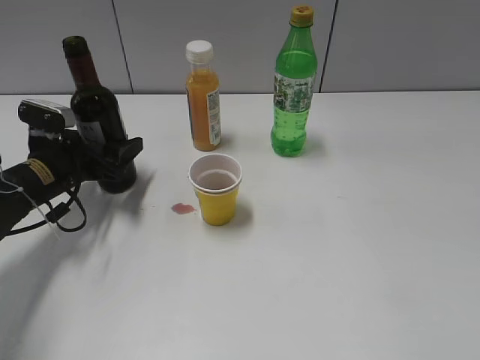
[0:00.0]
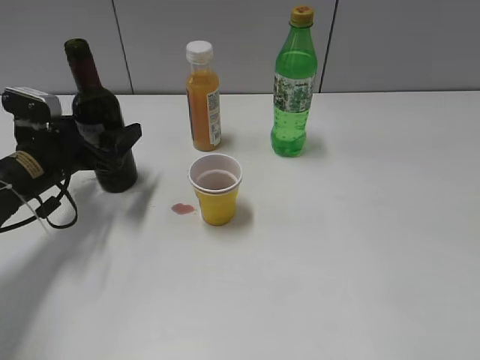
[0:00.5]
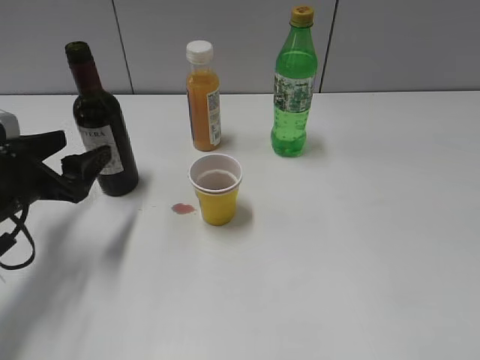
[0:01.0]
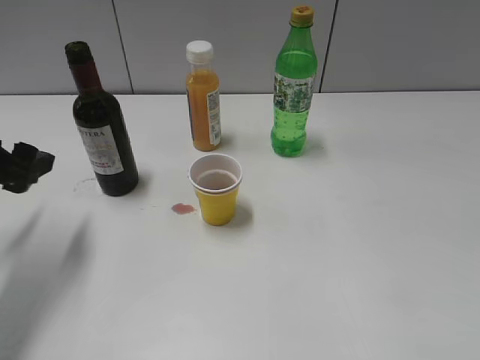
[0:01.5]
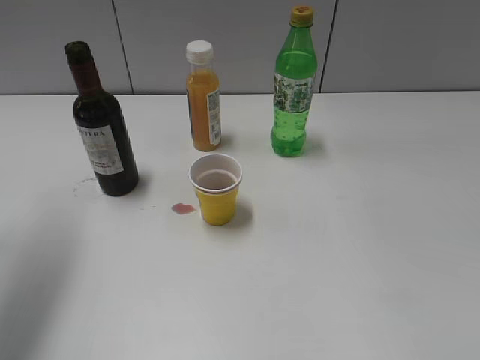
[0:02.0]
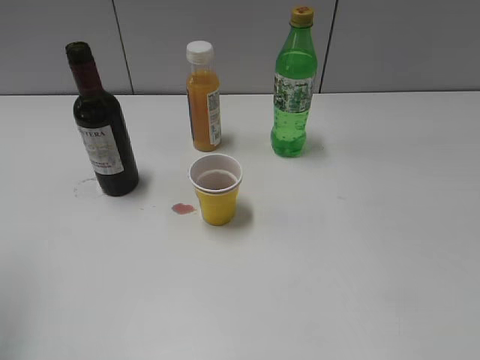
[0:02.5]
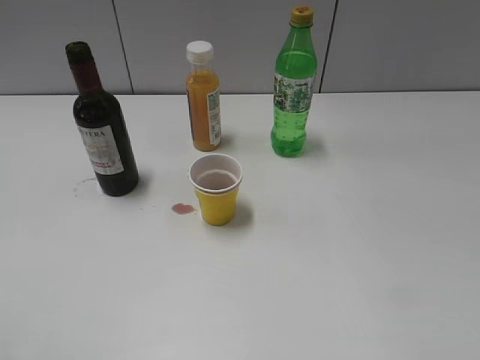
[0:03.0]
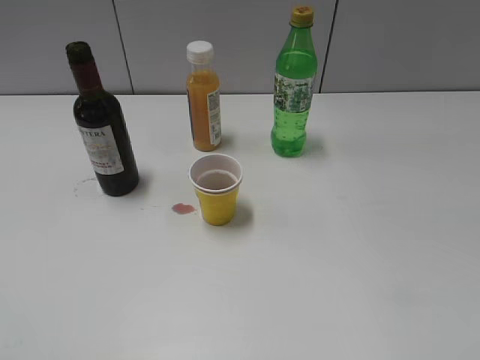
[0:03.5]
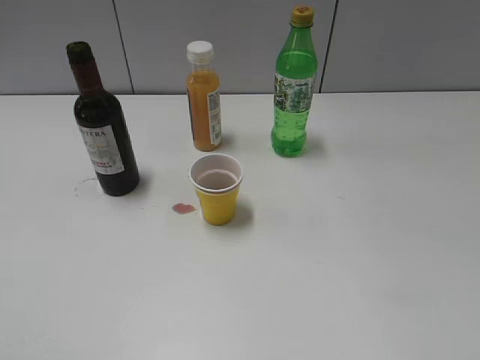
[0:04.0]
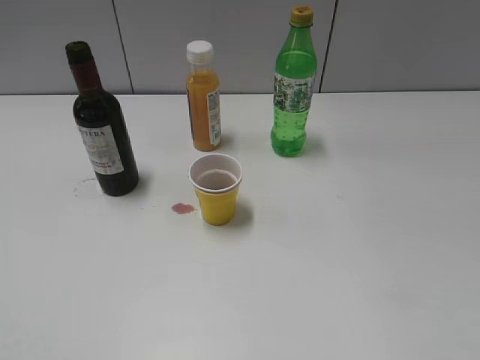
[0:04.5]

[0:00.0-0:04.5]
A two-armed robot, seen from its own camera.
0:00.0 to 0:02.0: The left gripper moves upward, about 25 cm.
0:02.0 to 0:04.5: The left gripper is displaced backward by some 30 cm.
